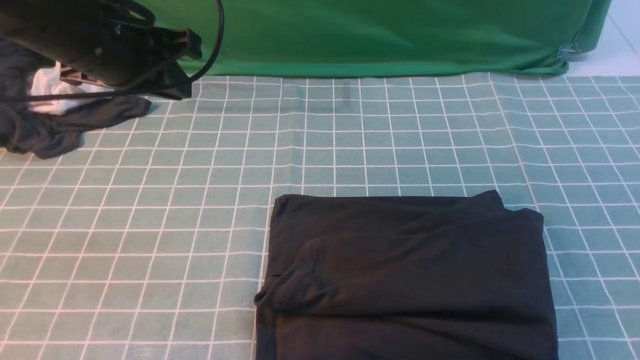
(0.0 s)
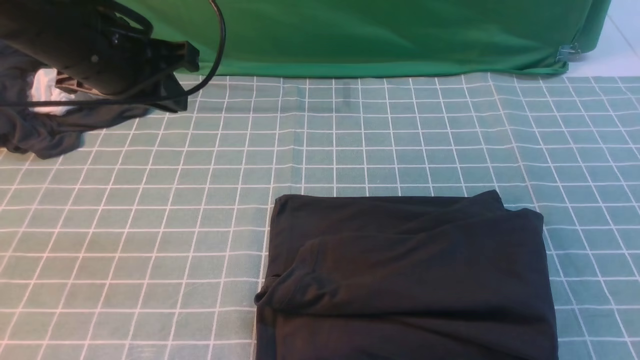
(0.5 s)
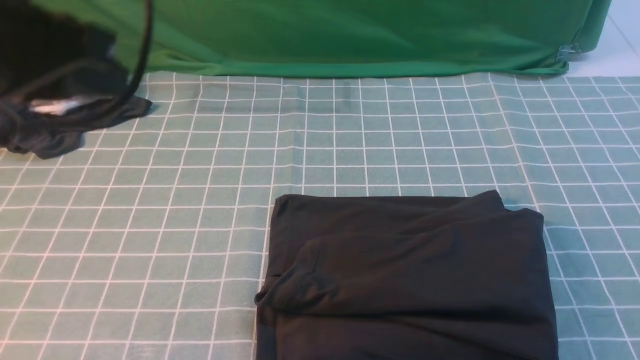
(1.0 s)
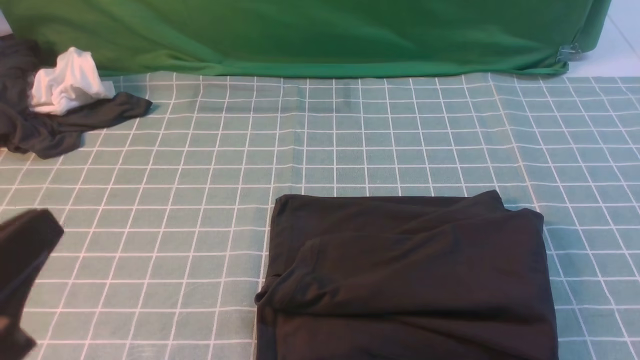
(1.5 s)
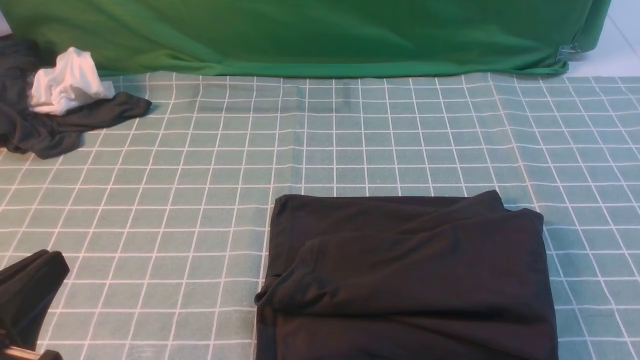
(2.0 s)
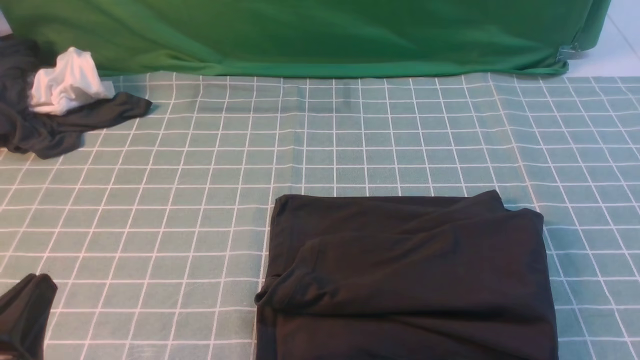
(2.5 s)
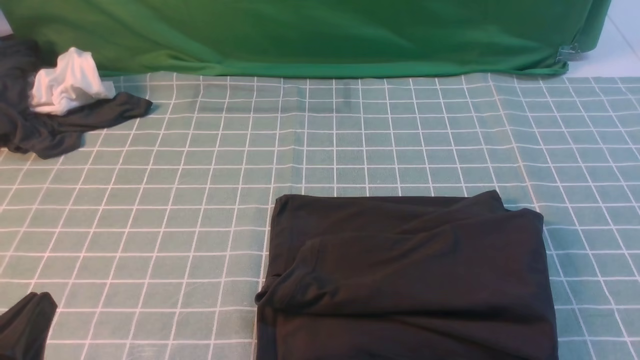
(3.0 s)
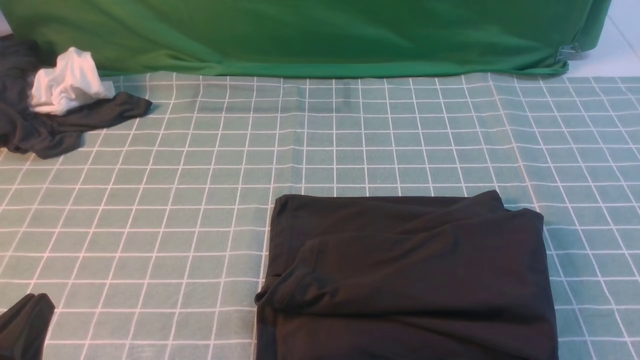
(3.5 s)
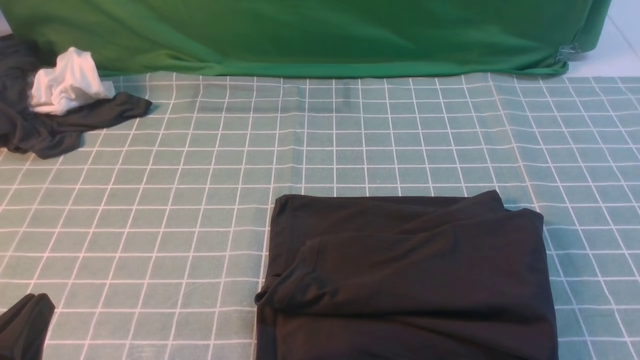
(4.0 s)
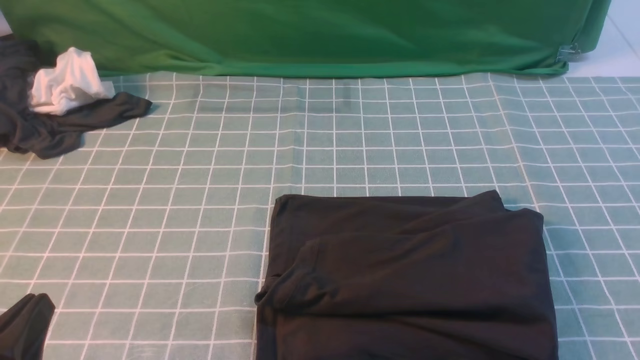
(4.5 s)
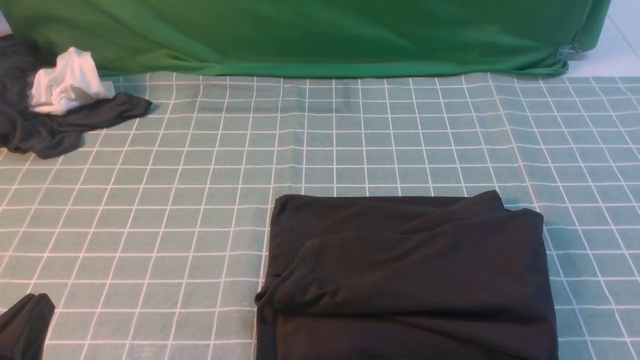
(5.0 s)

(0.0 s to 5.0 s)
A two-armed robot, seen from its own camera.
0.0 s - 2.5 s: The left gripper is displaced backward and downward by about 30 cm.
